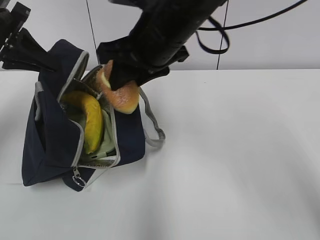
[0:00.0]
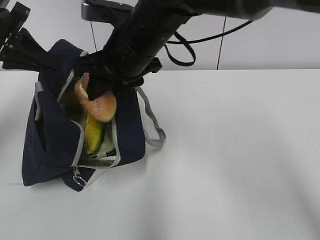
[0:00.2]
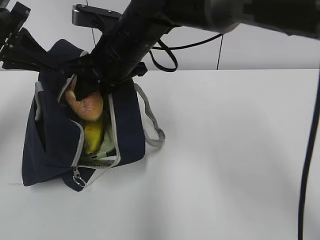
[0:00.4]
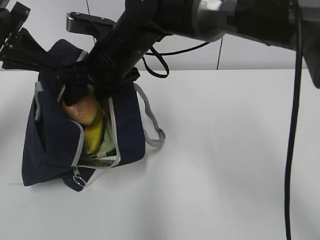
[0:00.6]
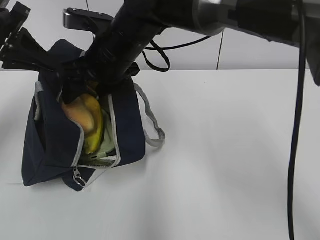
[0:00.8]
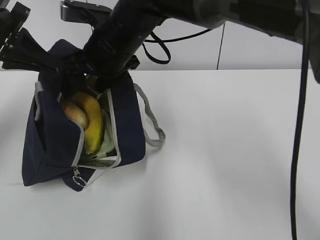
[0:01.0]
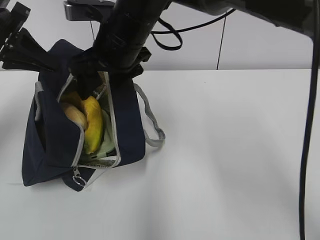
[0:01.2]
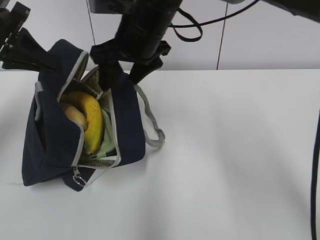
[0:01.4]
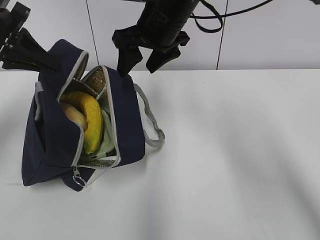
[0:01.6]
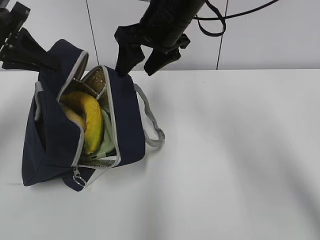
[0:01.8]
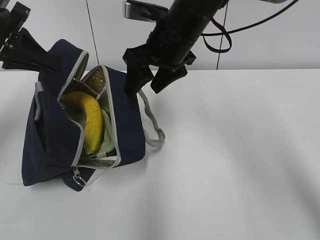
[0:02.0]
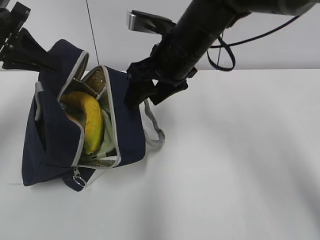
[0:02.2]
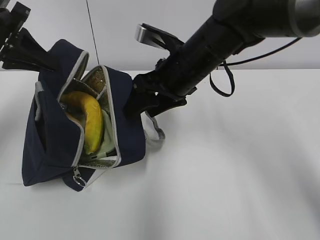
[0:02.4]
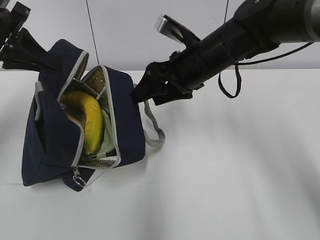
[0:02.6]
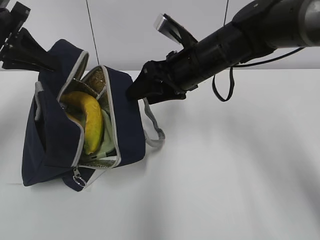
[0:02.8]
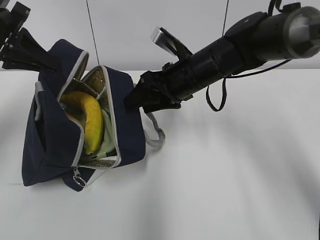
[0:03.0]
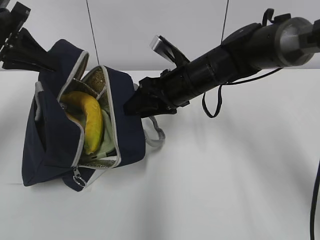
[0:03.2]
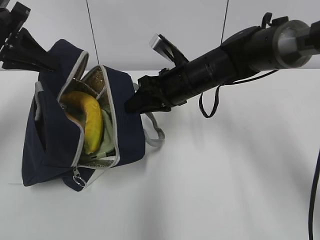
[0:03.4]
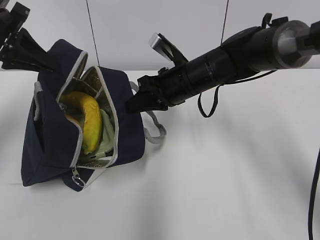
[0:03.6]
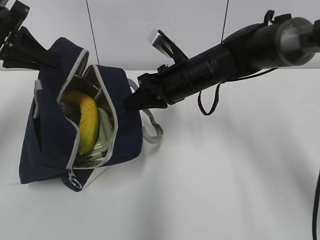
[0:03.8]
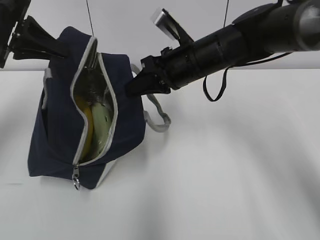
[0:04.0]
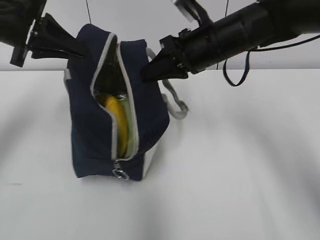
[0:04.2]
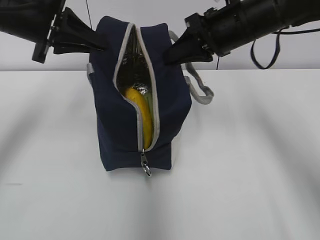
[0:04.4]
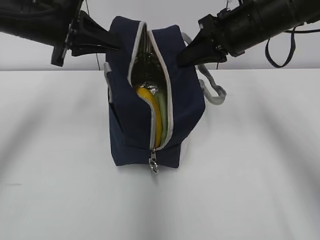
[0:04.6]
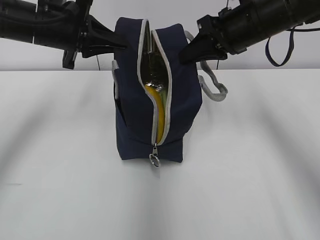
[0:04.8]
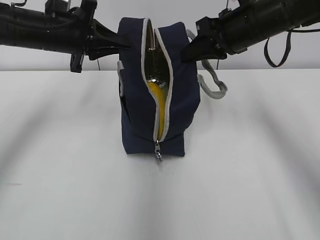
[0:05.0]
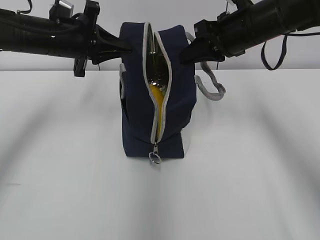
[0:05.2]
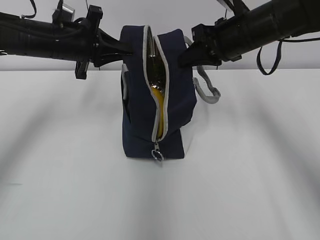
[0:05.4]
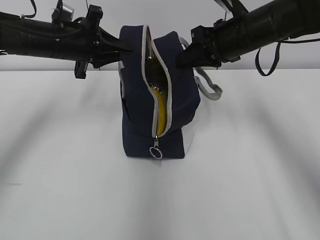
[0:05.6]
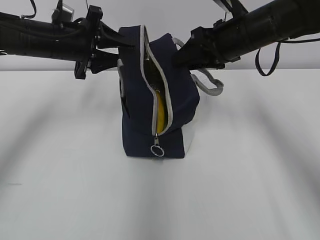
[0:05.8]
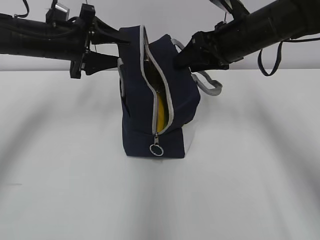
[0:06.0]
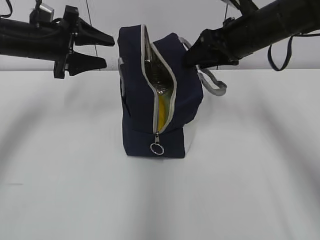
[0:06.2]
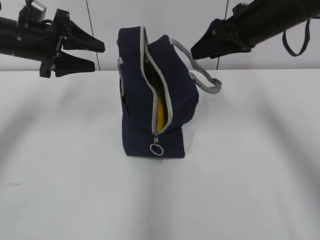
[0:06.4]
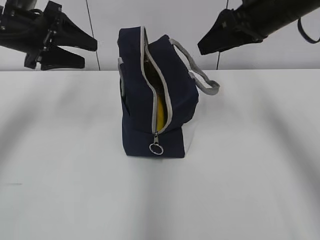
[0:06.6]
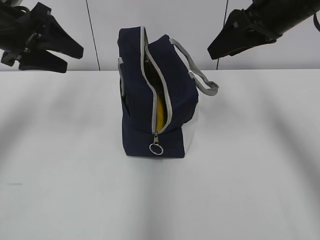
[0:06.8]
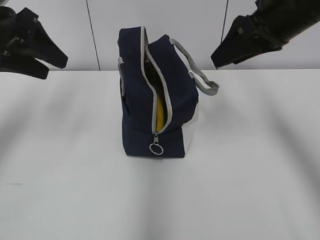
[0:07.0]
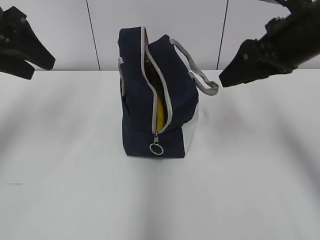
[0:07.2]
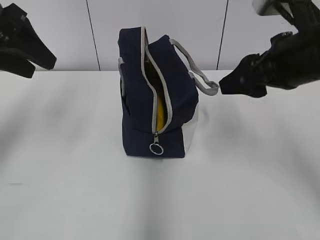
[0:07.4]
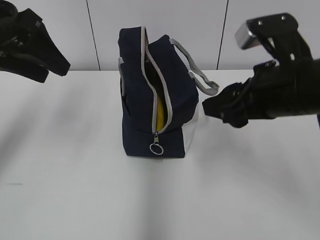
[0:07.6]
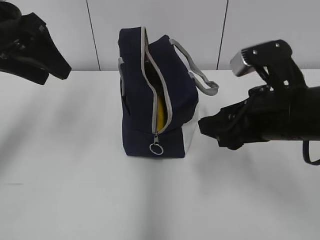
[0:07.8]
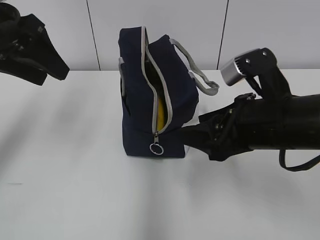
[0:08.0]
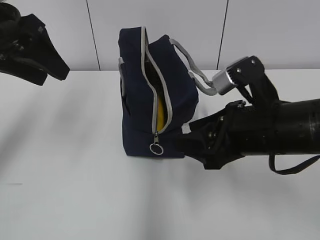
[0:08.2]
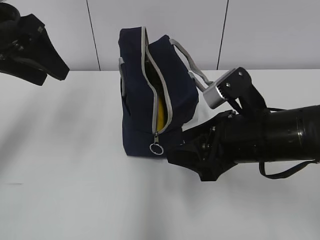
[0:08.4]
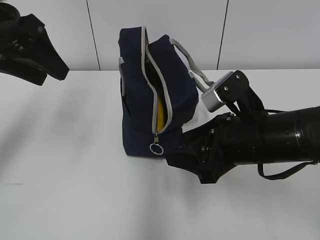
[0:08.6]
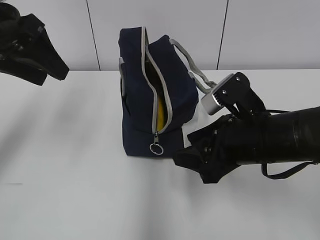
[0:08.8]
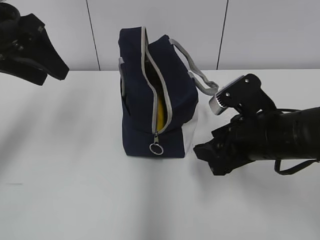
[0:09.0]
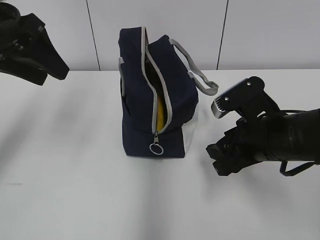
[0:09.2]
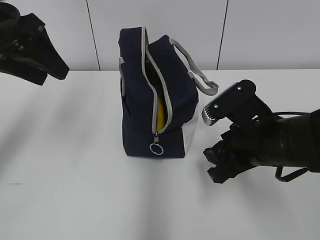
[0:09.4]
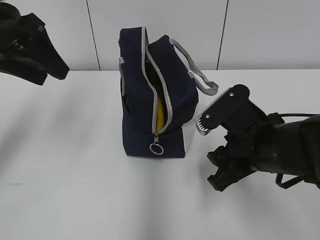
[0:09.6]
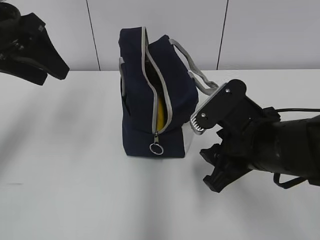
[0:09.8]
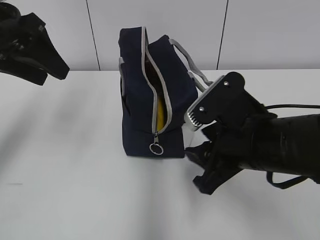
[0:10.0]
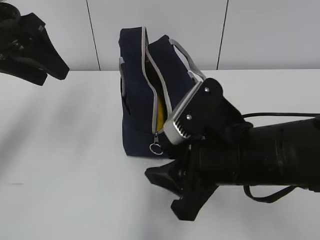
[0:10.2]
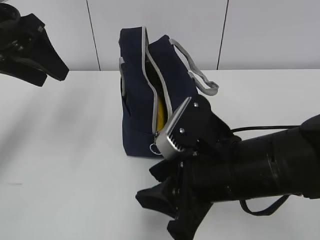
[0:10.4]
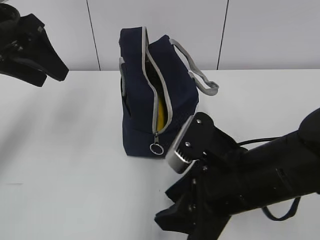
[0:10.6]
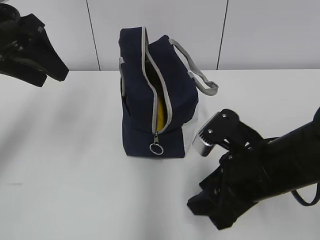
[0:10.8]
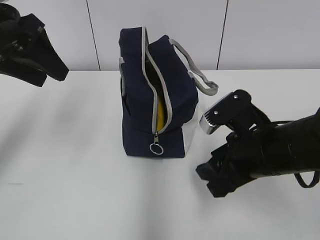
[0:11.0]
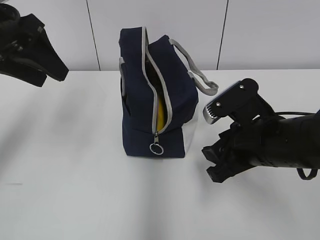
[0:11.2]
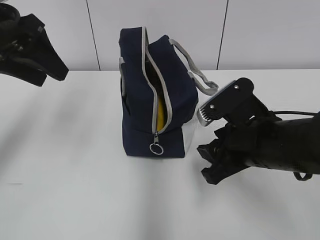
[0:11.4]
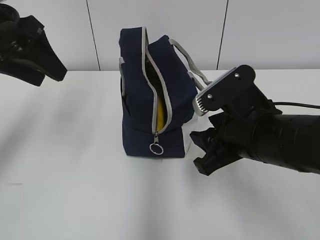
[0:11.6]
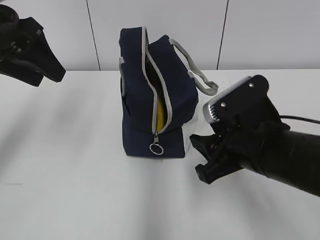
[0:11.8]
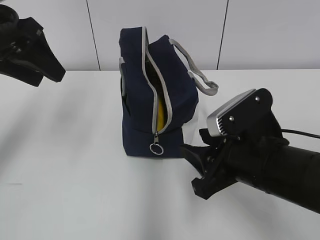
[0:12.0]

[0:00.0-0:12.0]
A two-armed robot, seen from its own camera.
0:00.0 to 0:01.6: The right gripper goes about 5 cm forward, goes to the left and returns, roughly 5 cm each way, and opens up.
0:01.6 to 0:03.0: The right gripper heads downward, covering about 10 cm.
0:03.0 to 0:04.4: The right gripper is displaced upward and to the right by approximately 10 cm, and closes its fingers; the left gripper is displaced to the right by about 5 cm.
0:04.4 to 0:06.0: The right gripper opens. Meanwhile the left gripper goes some 10 cm downward and forward, and opens its fingers.
0:06.0 to 0:07.6: The left gripper is displaced backward and upward by roughly 10 cm. Meanwhile the right gripper goes some 15 cm backward.
0:07.6 to 0:09.0: The right gripper heads downward, covering approximately 10 cm.
0:09.0 to 0:10.4: The right gripper is displaced to the left and backward by some 10 cm.
0:10.4 to 0:12.0: The right gripper moves roughly 5 cm.

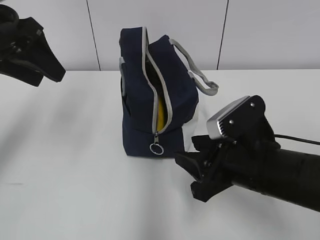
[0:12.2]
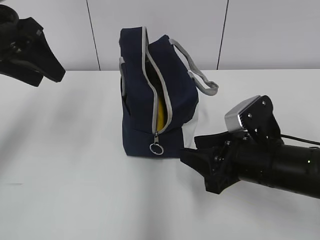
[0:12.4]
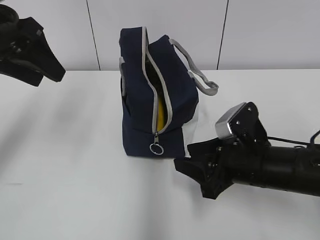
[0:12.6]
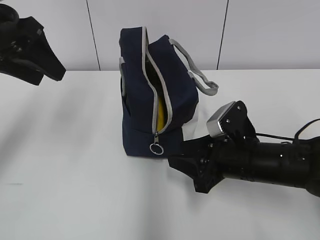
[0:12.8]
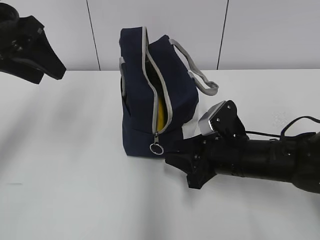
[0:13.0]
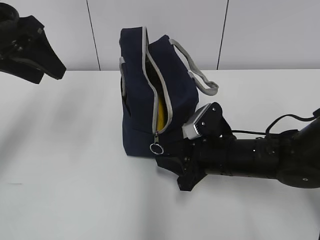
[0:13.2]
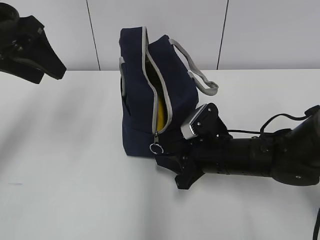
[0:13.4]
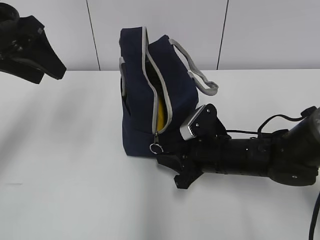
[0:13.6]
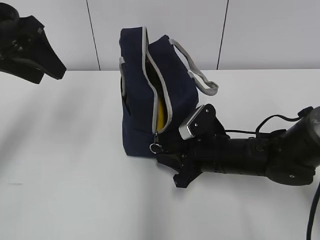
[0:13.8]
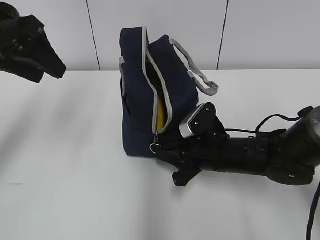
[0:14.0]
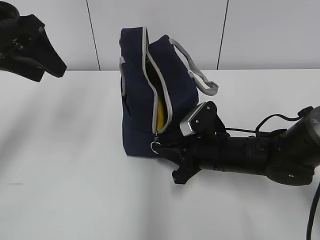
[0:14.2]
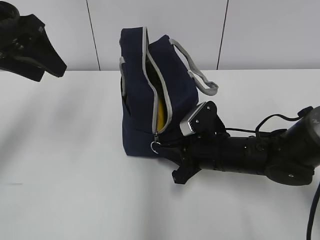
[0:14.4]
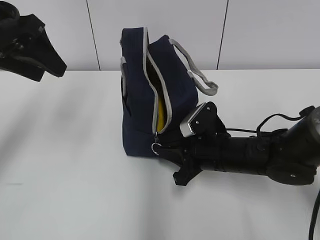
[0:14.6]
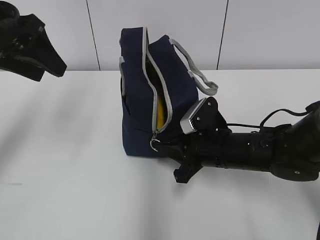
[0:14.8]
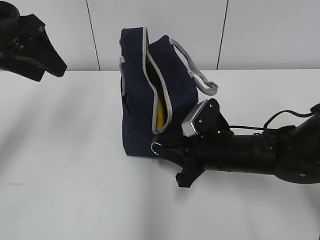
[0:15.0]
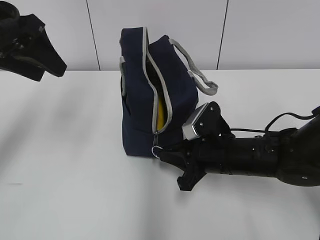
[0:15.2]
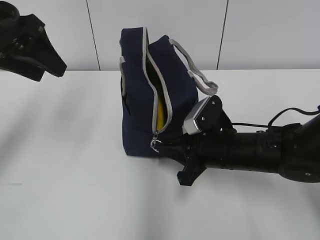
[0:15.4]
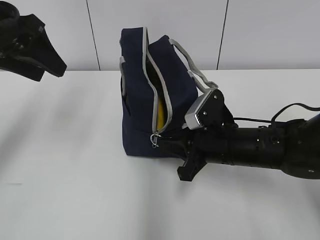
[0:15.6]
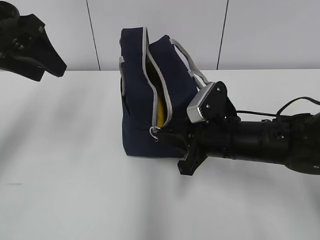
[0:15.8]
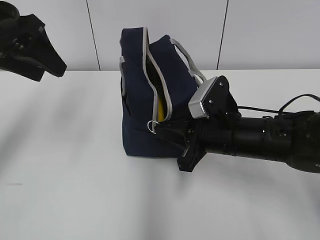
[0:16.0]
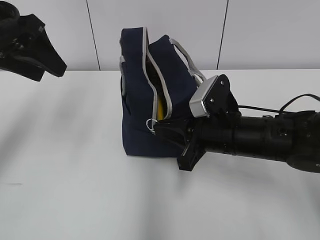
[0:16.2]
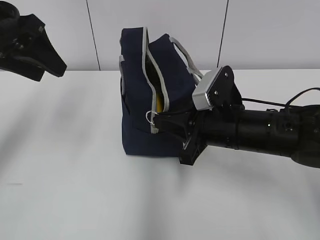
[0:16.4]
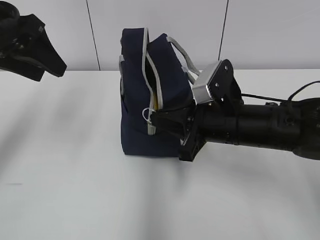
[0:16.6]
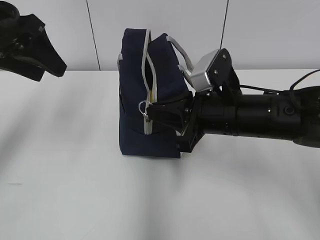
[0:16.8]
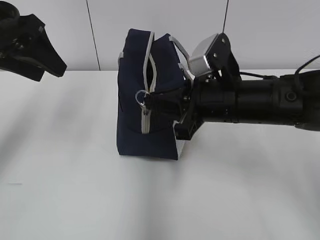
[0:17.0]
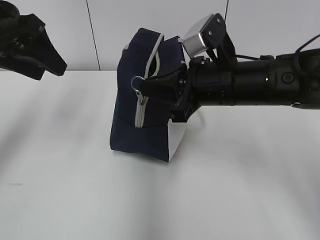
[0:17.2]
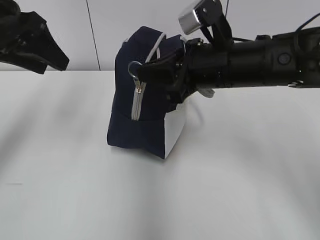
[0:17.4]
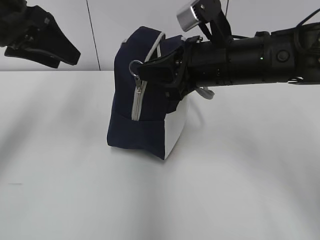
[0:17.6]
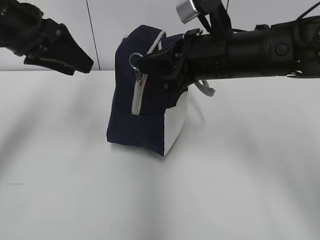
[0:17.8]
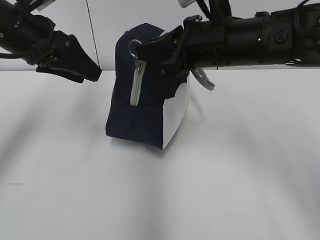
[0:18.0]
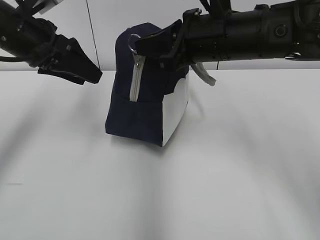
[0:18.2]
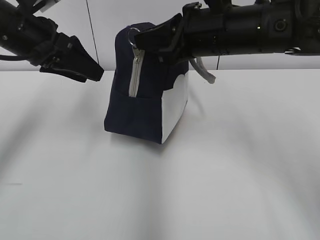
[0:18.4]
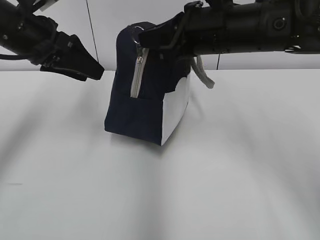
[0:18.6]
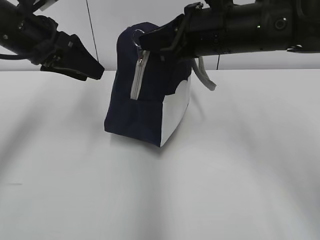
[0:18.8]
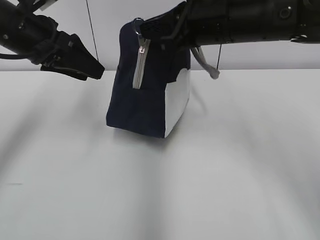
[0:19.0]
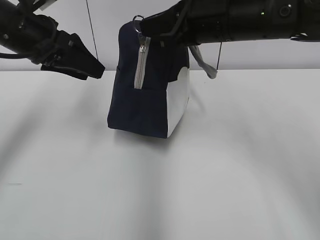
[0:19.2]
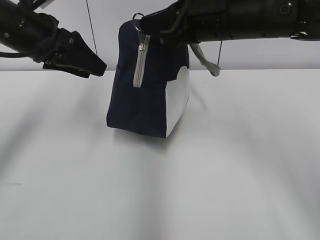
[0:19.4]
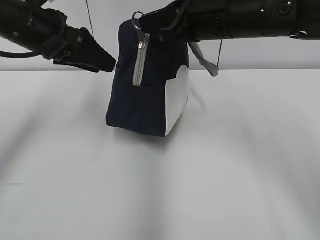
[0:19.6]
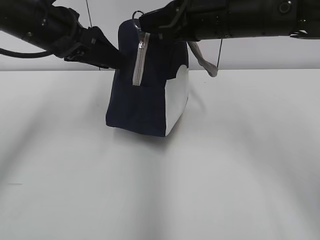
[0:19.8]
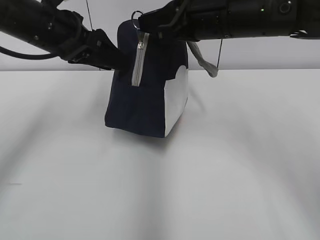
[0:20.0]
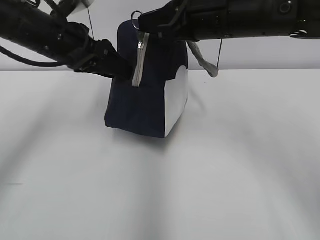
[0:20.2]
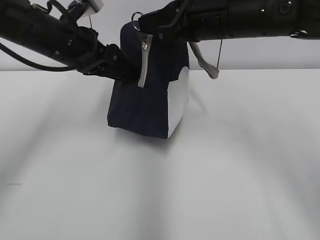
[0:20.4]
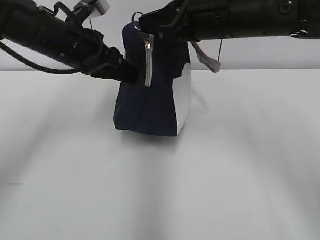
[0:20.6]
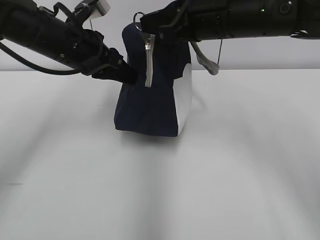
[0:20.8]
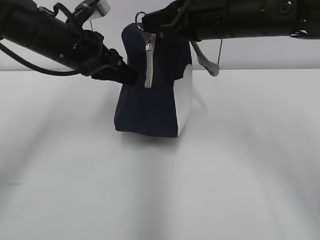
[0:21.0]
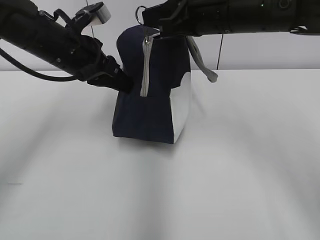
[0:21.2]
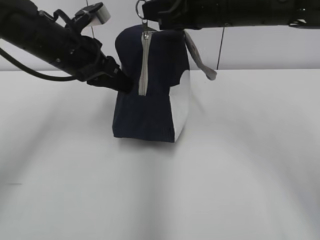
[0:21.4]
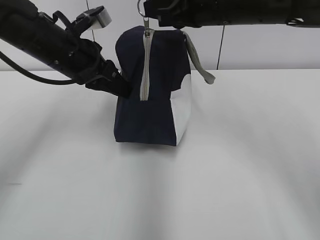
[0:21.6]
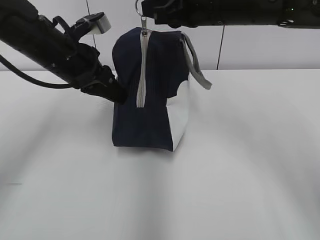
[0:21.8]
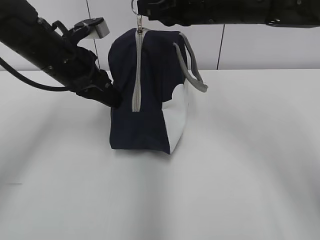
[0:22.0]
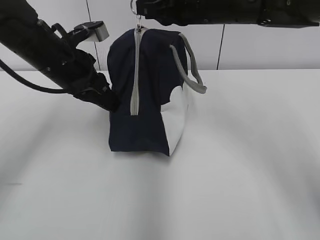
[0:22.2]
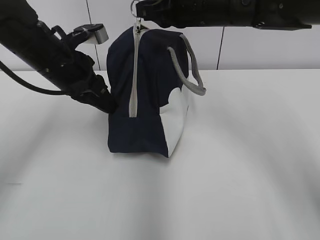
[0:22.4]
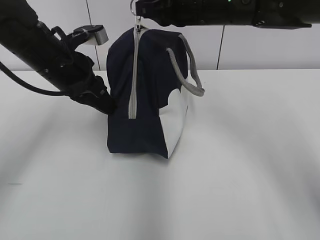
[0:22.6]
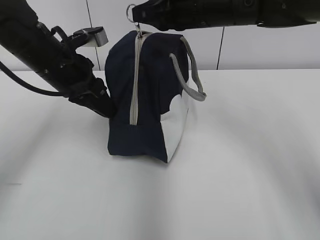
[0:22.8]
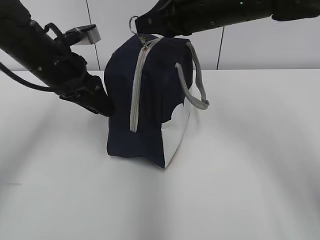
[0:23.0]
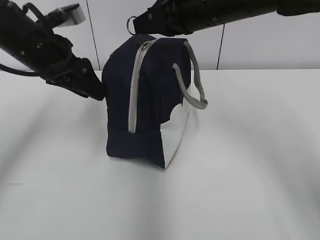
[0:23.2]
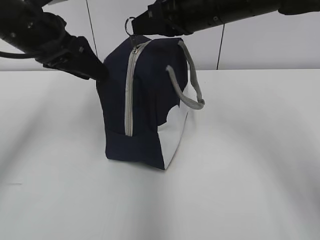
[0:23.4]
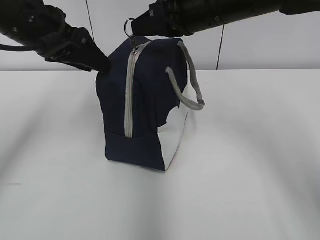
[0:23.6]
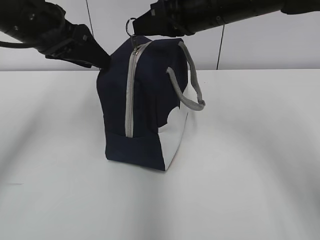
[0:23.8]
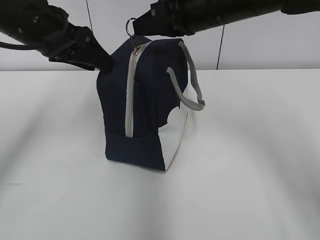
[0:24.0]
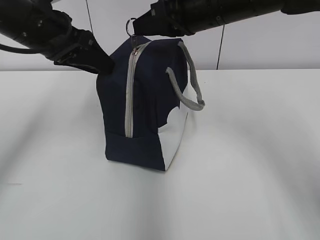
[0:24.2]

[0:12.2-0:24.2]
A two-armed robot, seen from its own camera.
0:12.2 to 0:13.8: The right gripper travels forward and downward by about 10 cm.
0:13.8 to 0:15.2: The right gripper closes up.
0:15.2 to 0:16.6: The right gripper goes roughly 5 cm upward.
0:16.6 to 0:18.2: The left gripper moves roughly 5 cm, while the right gripper travels upward and forward by about 10 cm.
0:18.2 to 0:19.8: The grippers move only a little.
0:19.8 to 0:21.2: The left gripper shifts by about 5 cm, and closes.
0:21.2 to 0:22.6: The right gripper moves forward, roughly 5 cm.
0:22.6 to 0:24.2: The left gripper travels upward by roughly 5 cm, and opens up.
